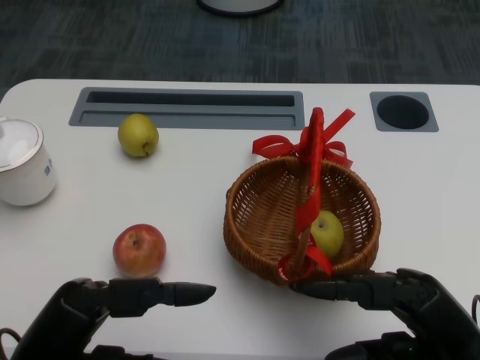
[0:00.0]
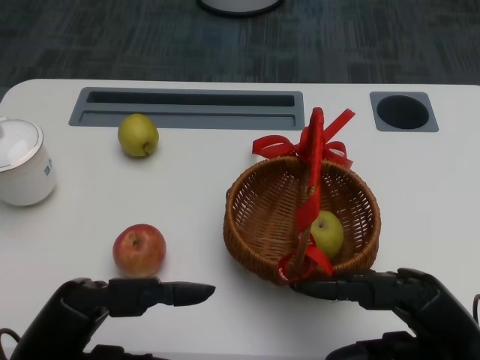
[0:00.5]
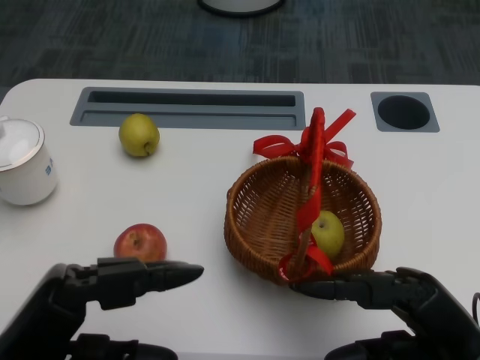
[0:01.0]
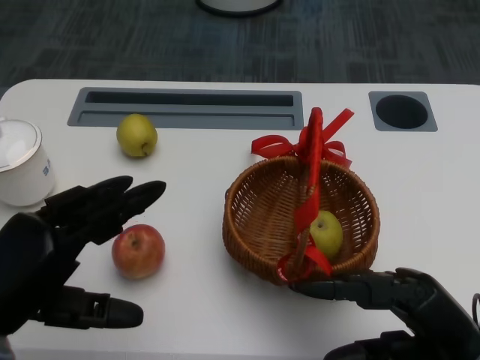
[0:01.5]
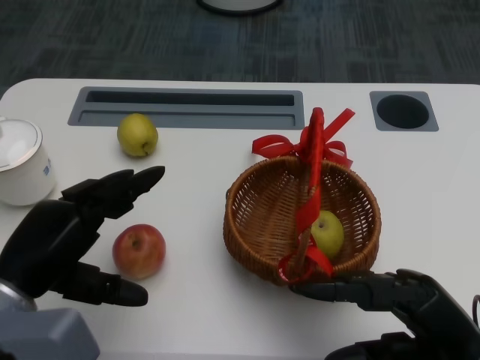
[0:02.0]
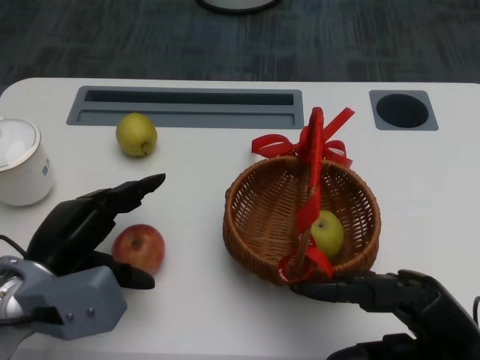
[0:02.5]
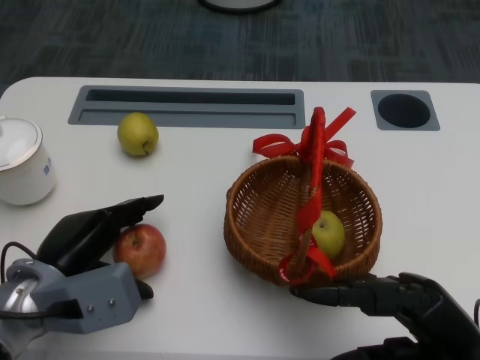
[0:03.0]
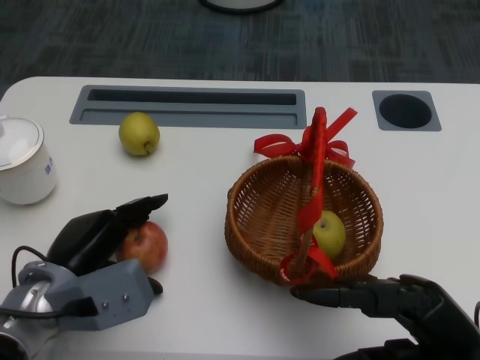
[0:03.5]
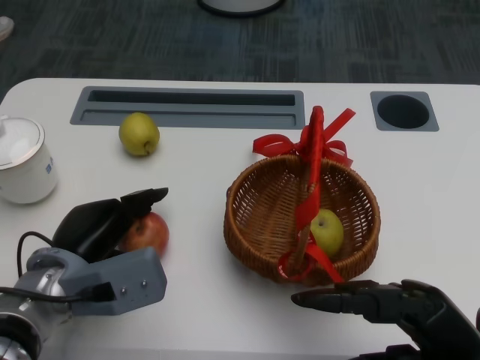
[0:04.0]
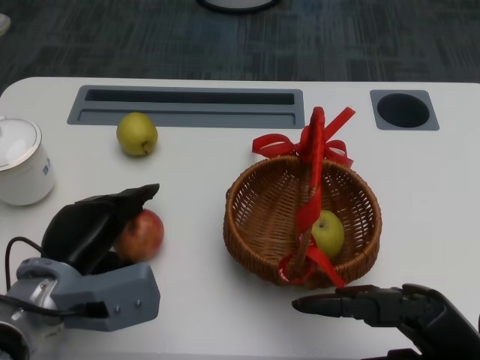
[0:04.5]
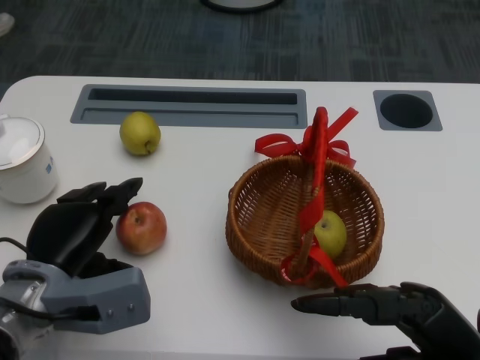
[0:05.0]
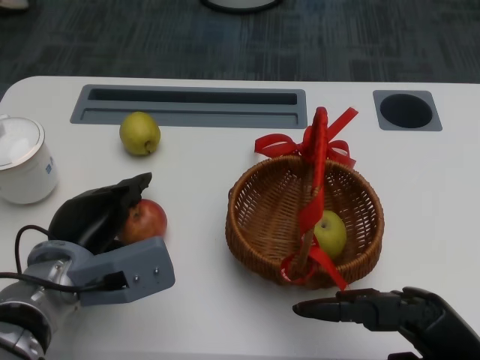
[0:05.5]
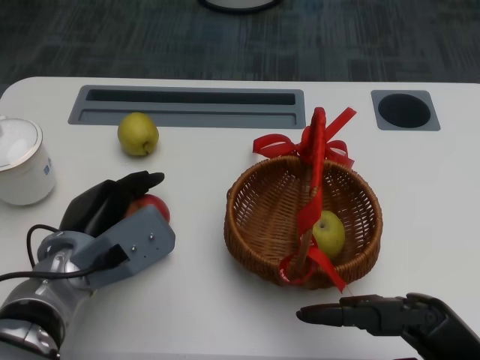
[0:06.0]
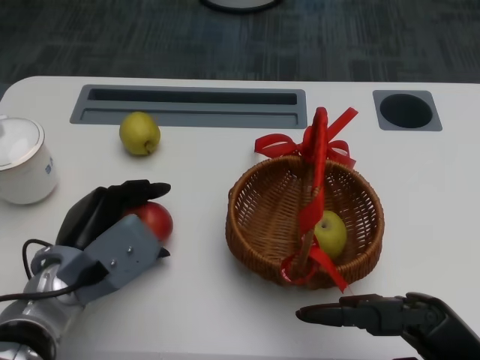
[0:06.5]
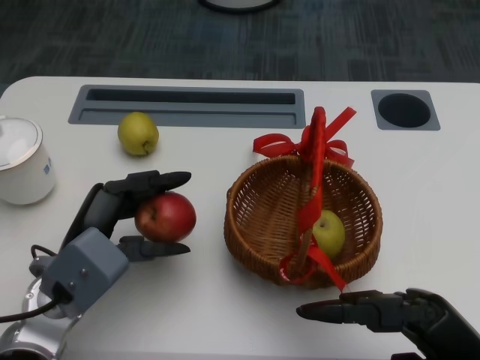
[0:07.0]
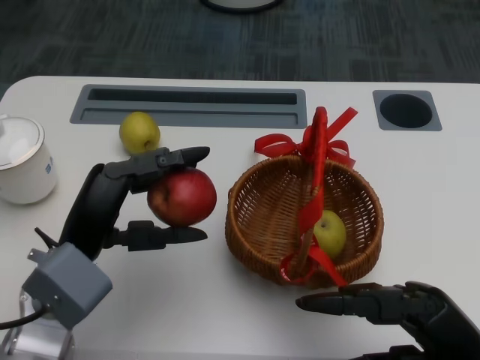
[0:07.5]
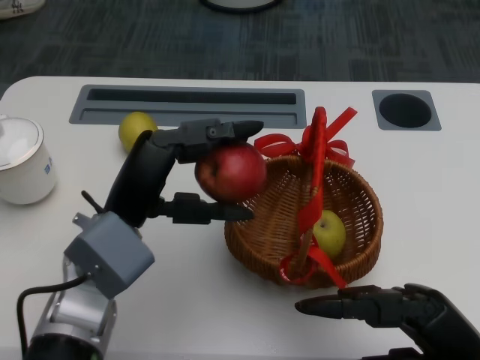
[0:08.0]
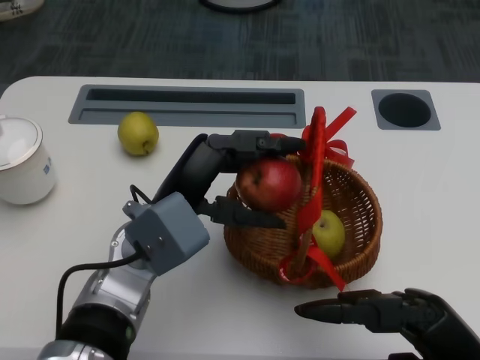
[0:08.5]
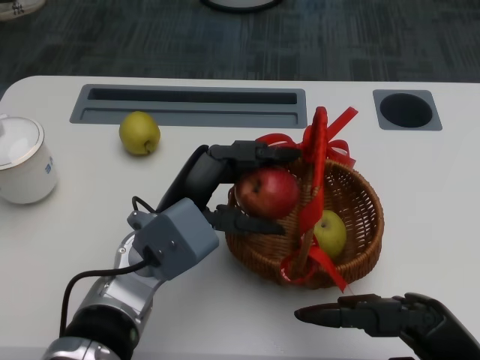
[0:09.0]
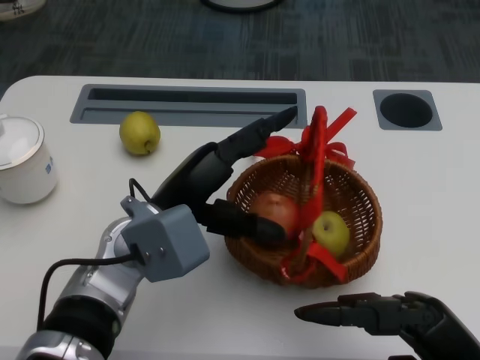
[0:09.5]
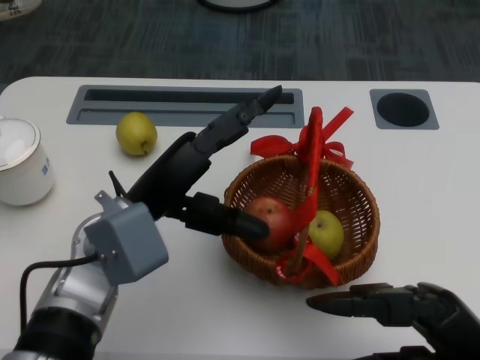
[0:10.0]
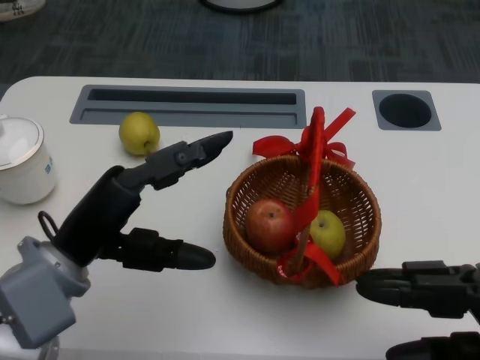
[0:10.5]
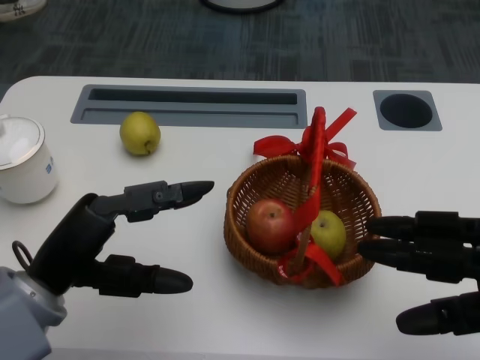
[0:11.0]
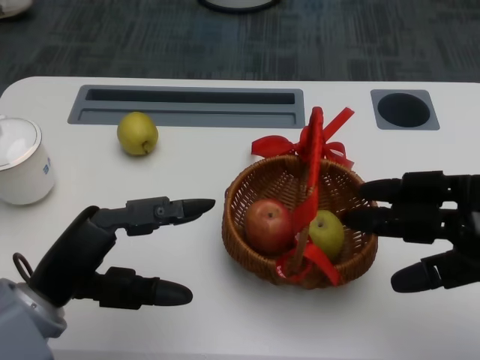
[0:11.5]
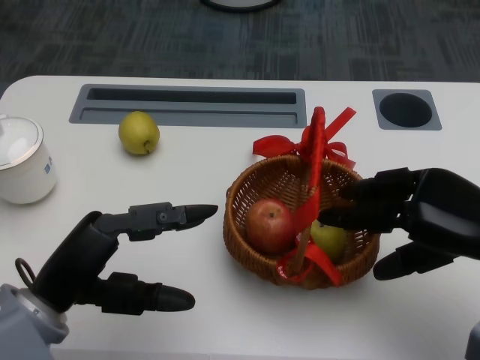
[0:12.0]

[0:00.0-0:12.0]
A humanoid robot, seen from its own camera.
Step, 0:01.0 to 0:04.5: Grasp the apple with the left gripper.
Step, 0:05.0 to 0:07.5: Place the apple into the basket with the left gripper.
Step, 0:08.0 to 0:10.5: Grasp the basket with the right gripper.
0:02.0 to 0:04.0: The left hand is displaced forward and downward by about 10 cm.
0:04.0 to 0:06.0: The hands make only small movements.
0:06.0 to 0:08.0: The left hand goes approximately 5 cm upward.
0:10.0 to 0:12.0: The right hand travels forward and upward by approximately 10 cm, while the left hand shifts about 10 cm to the left and backward.

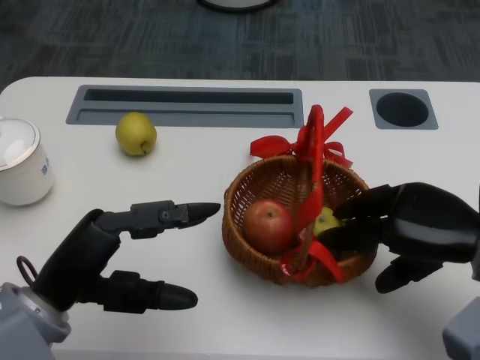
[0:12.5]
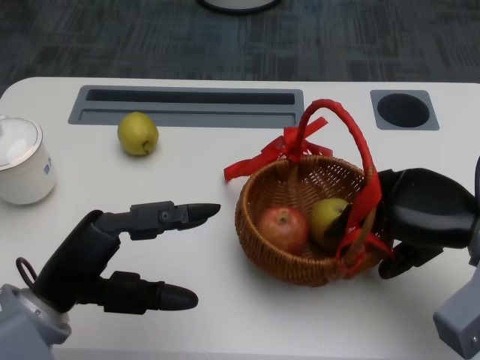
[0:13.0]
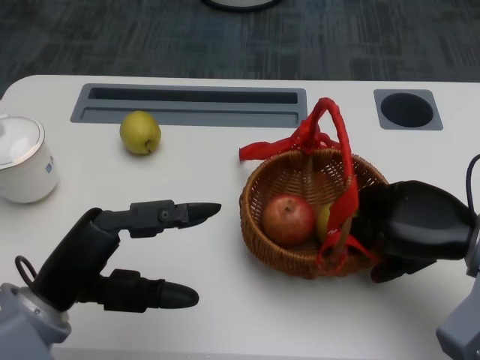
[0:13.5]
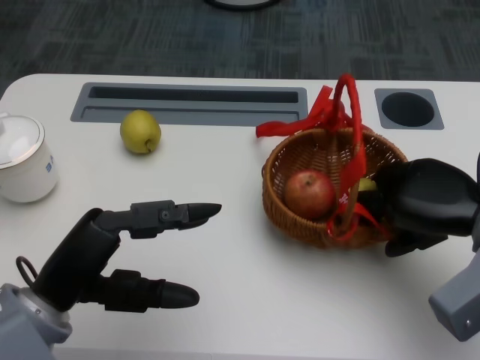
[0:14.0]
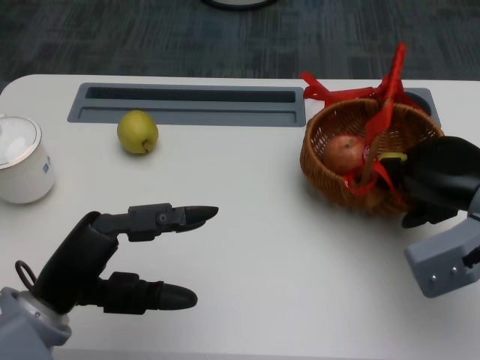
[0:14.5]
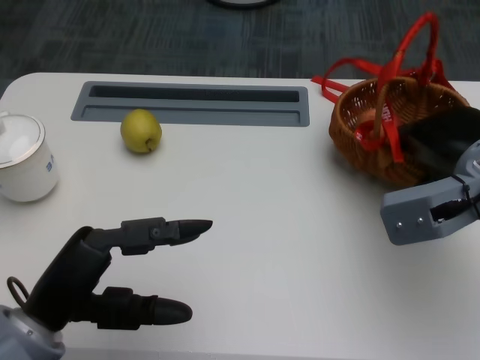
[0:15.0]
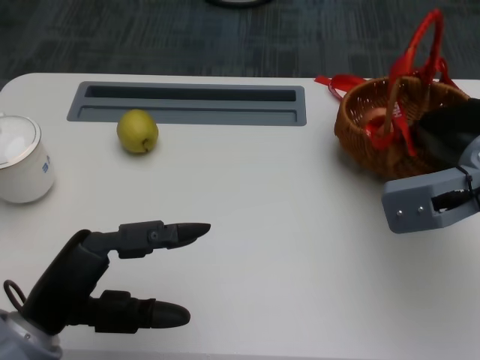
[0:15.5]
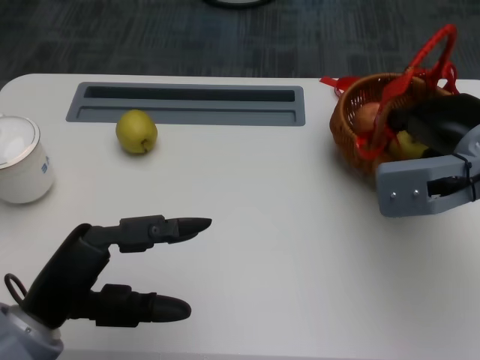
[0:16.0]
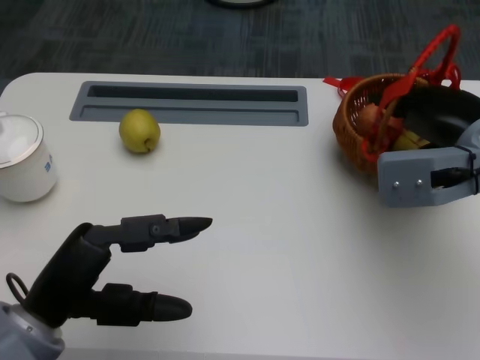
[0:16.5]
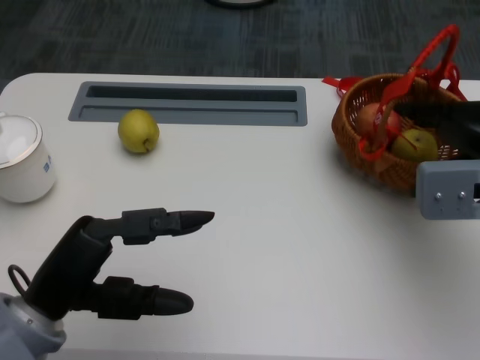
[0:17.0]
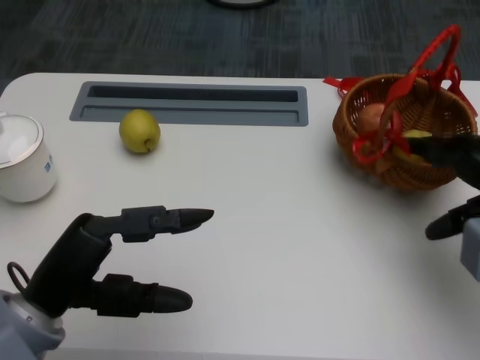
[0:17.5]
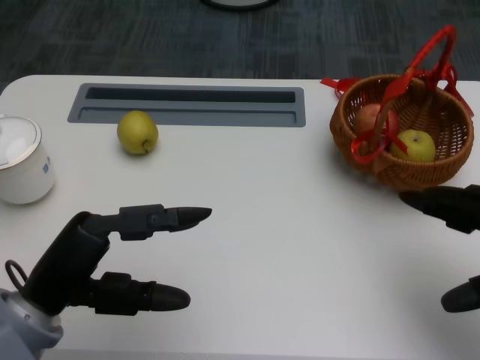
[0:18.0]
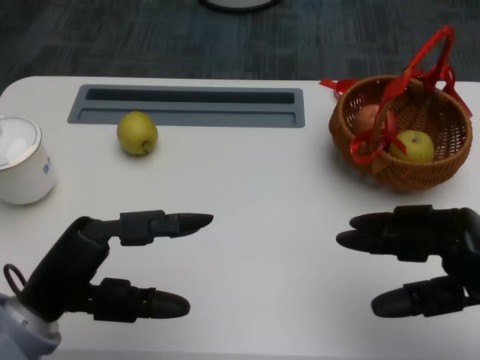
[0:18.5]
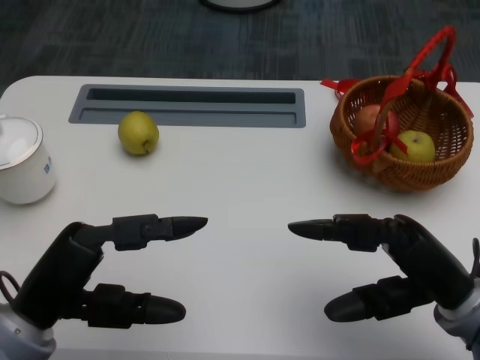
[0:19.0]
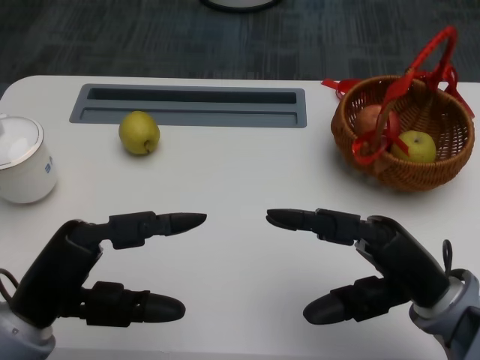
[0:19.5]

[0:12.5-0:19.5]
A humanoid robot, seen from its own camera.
0:16.0 to 0:17.5: The right hand shifts about 5 cm to the right.
0:17.5 to 0:19.5: The right hand shifts about 10 cm to the left and backward.

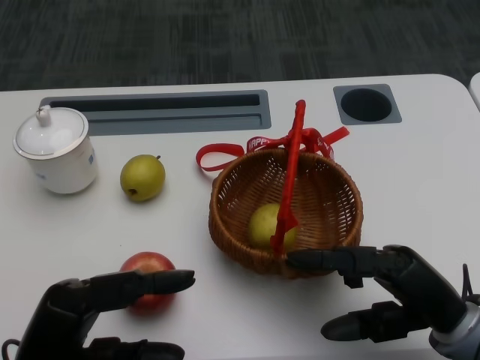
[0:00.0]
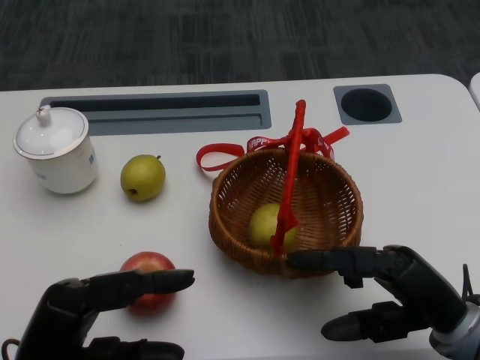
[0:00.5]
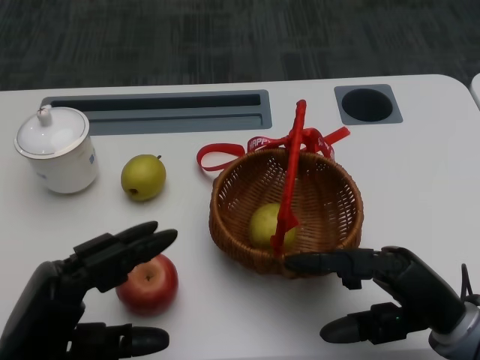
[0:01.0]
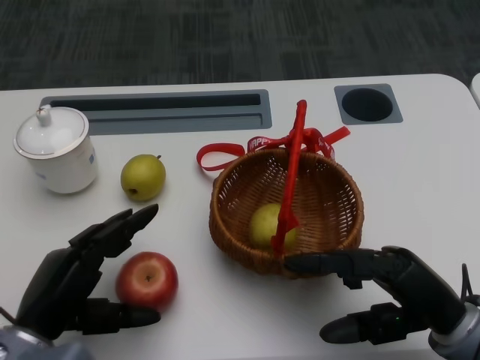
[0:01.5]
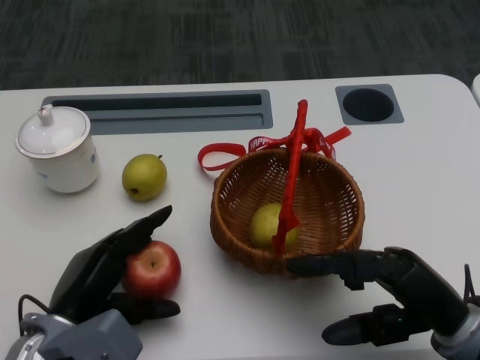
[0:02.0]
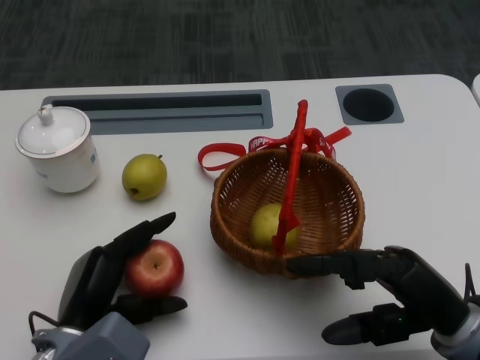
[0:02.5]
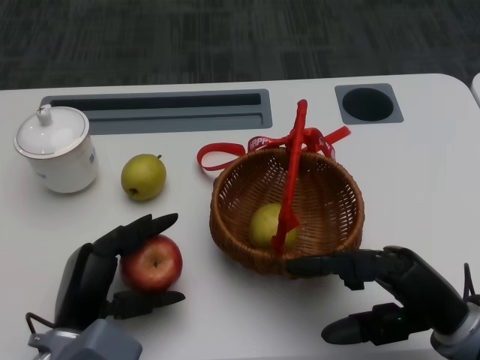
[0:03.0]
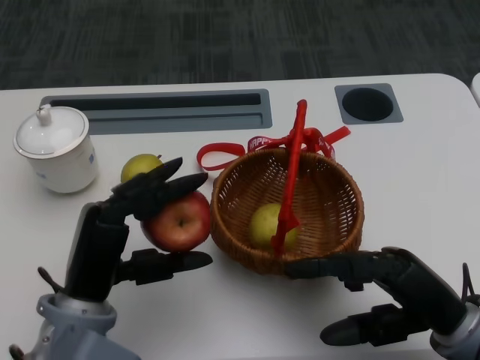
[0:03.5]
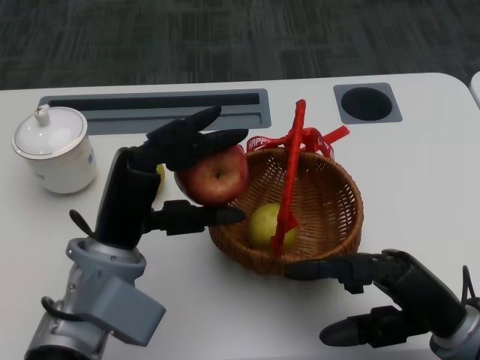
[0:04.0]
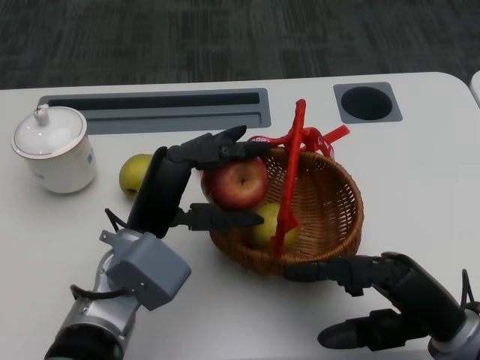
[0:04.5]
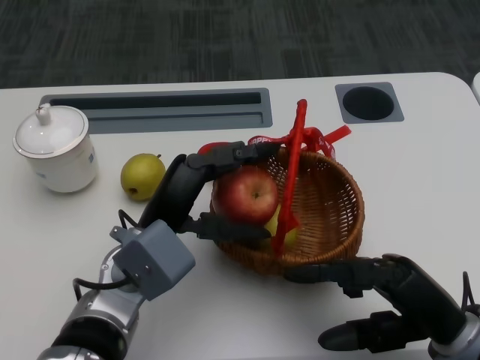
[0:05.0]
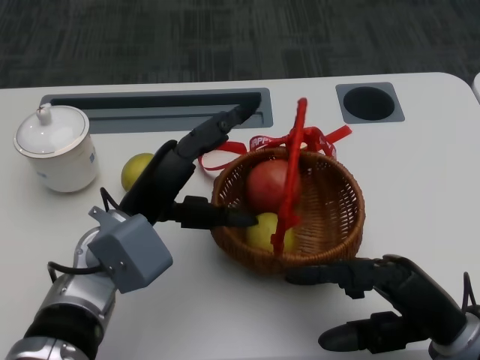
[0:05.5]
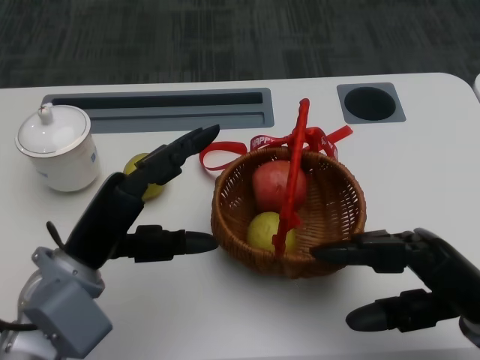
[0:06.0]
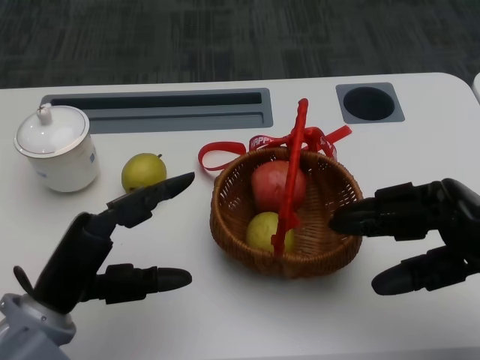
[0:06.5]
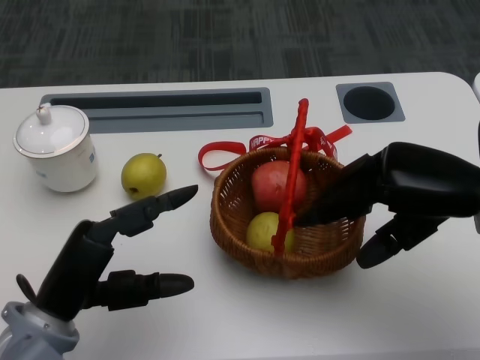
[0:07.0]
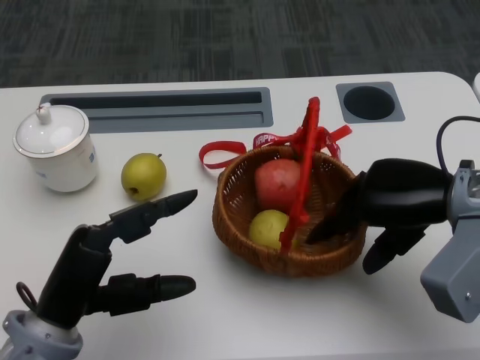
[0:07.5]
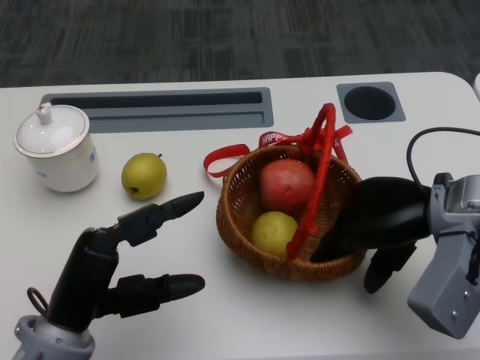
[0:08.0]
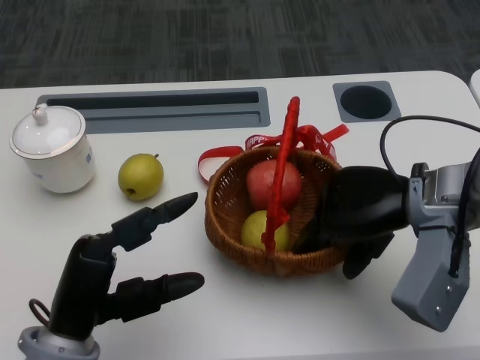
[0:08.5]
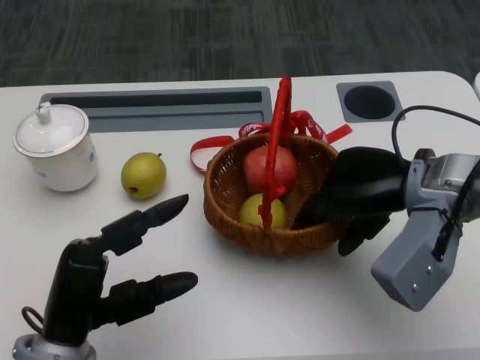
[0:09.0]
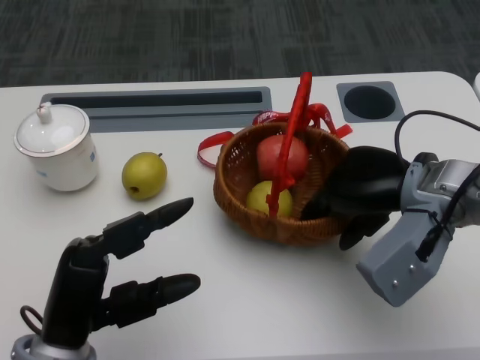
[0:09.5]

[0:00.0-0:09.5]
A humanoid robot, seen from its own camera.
Step, 0:01.0 to 0:02.0: Grasp the apple with the left gripper.
Step, 0:02.5 to 0:04.0: Place the apple into the basket with the left gripper.
Step, 0:04.5 to 0:06.5: Grasp the basket with the right gripper.
Step, 0:07.0 to 0:09.0: Move the basket to the front of the table with the right gripper.
0:02.0 to 0:04.0: The left hand is displaced upward and to the right by about 10 cm.
0:05.5 to 0:07.5: The right hand goes some 15 cm forward and upward, while the left hand shifts some 10 cm backward and to the left.
